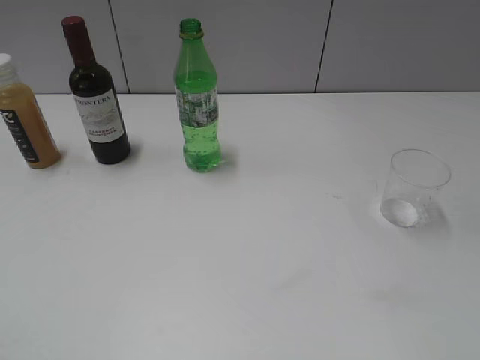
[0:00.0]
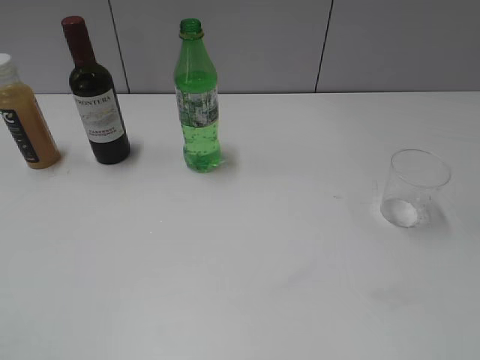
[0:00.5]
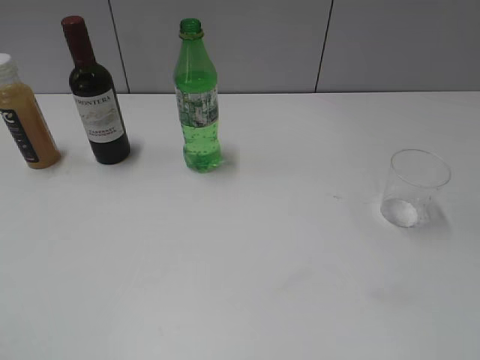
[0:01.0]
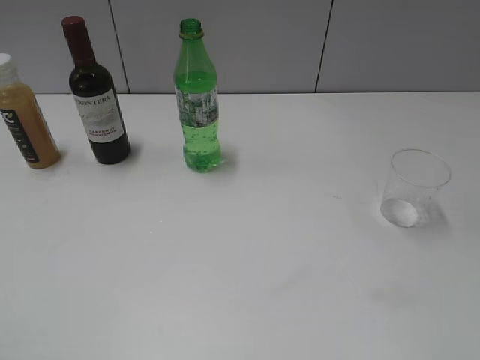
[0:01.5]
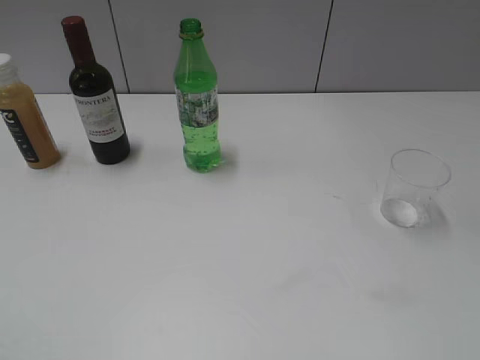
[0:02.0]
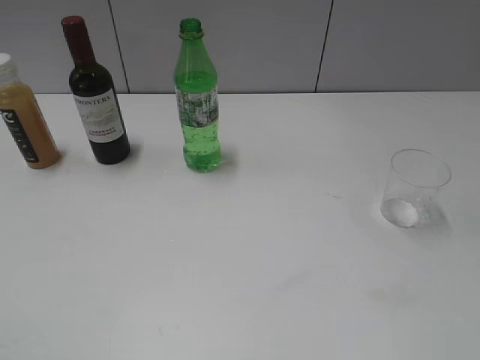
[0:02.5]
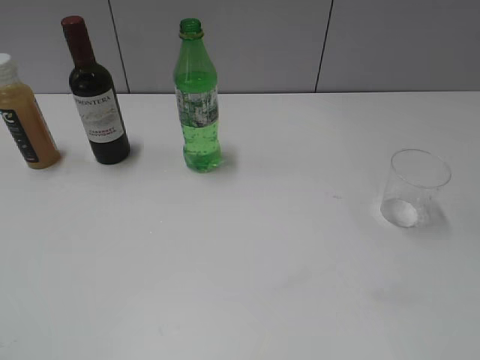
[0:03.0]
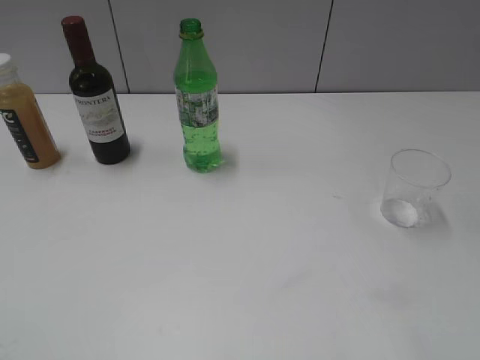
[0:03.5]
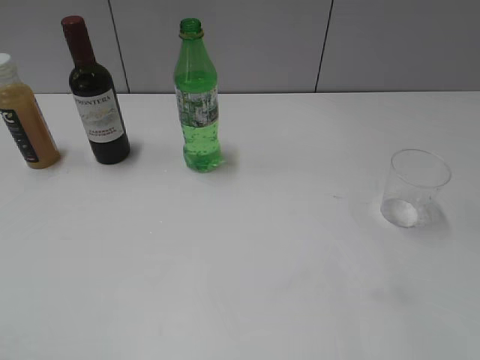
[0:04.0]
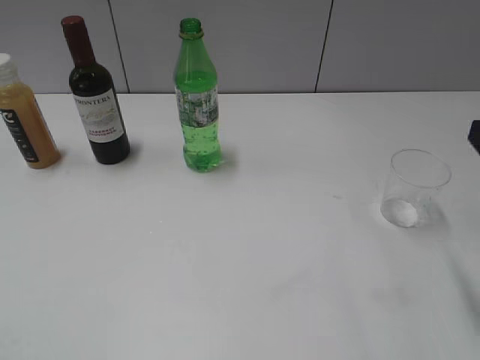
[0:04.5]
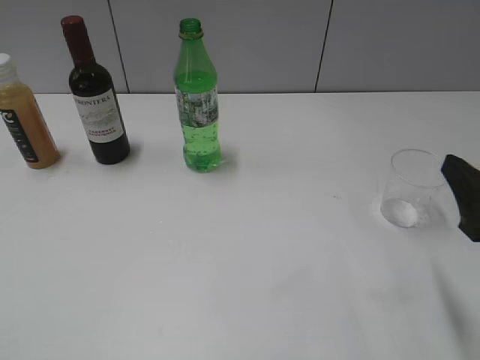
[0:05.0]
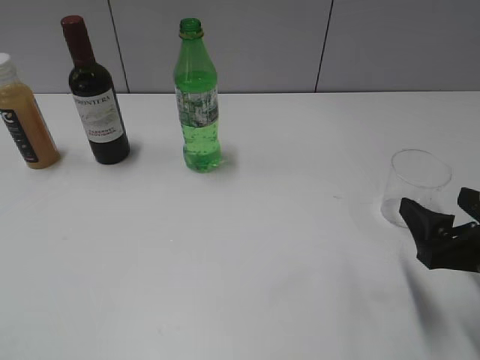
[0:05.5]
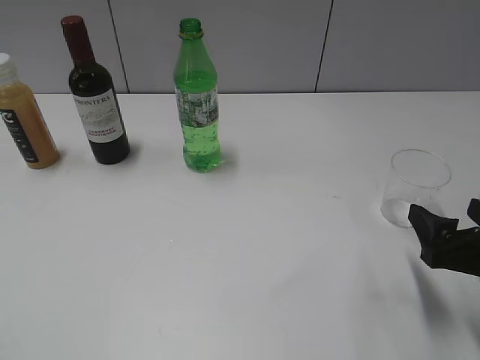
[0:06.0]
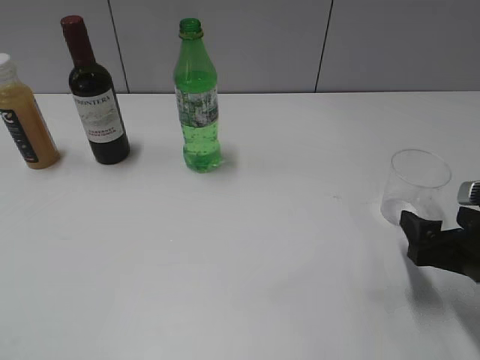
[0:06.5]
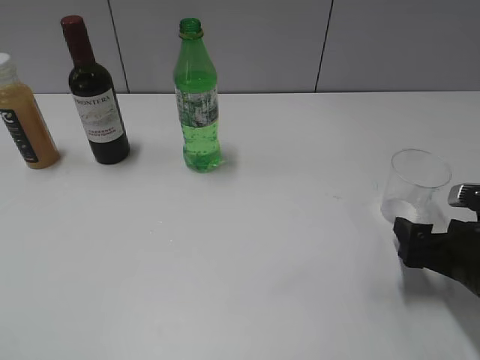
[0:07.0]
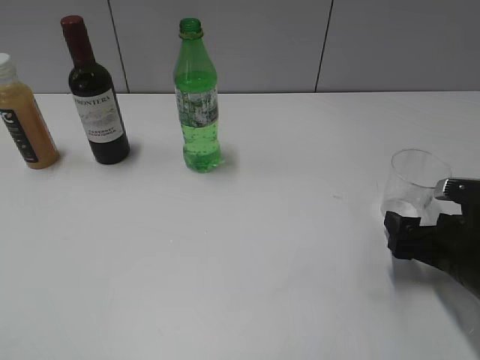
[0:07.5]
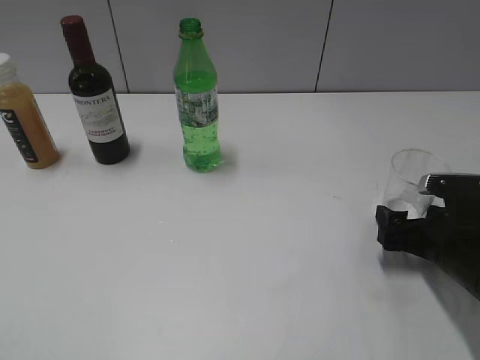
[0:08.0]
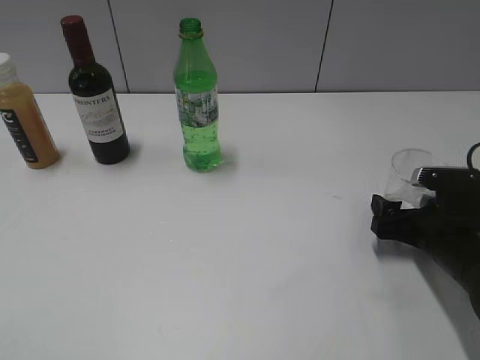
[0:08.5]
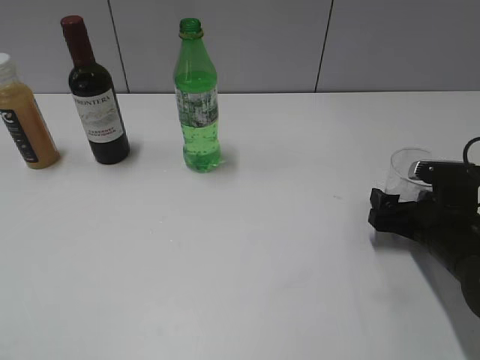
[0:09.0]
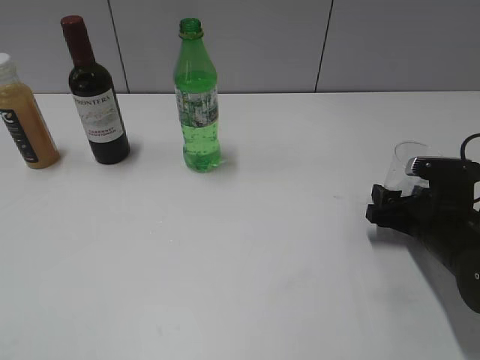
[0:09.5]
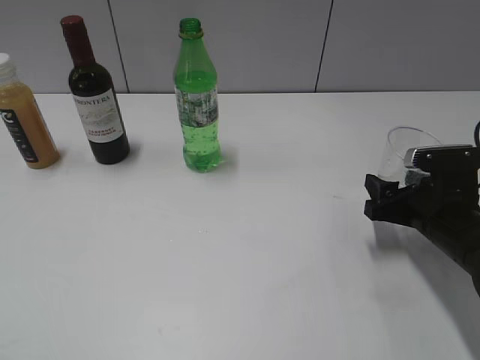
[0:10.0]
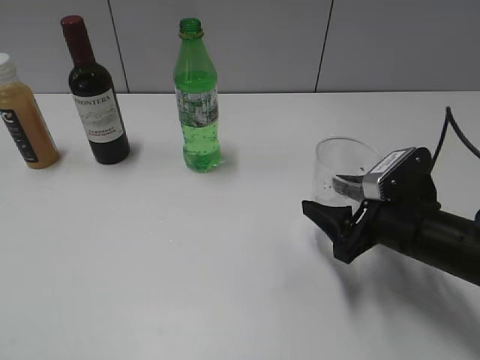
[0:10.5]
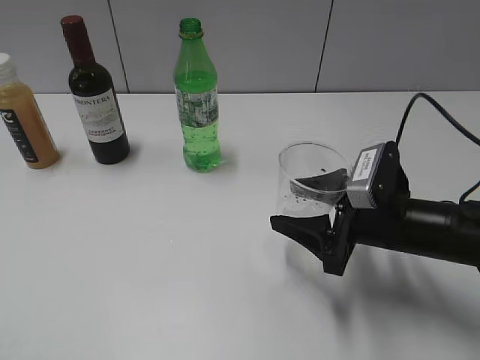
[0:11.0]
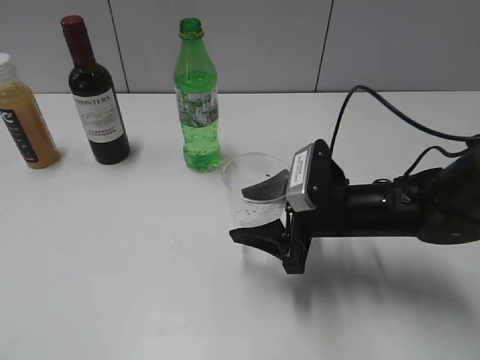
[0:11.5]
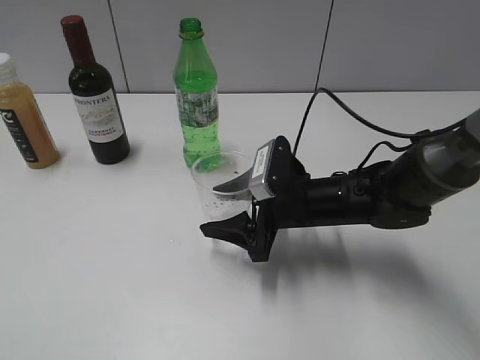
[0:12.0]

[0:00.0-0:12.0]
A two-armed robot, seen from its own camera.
Step, 0:00.0 to 0:09.5: Grasp the transparent cup with right gripper.
0:04.0 to 0:06.0: The right gripper goes some 20 cm downward, and opens up.
0:06.0 to 0:08.0: The right gripper heads downward and forward, covering about 10 cm.
0:08.0 to 0:10.0: The right gripper closes up.
0:10.0 to 0:12.0: The right gripper shifts approximately 15 cm to the left.

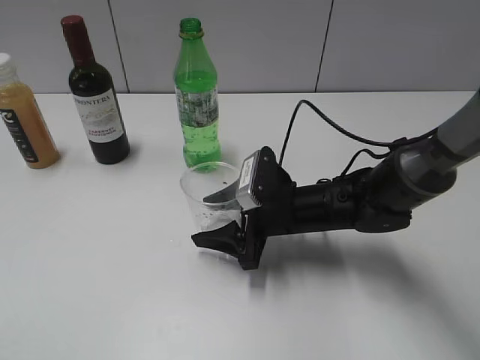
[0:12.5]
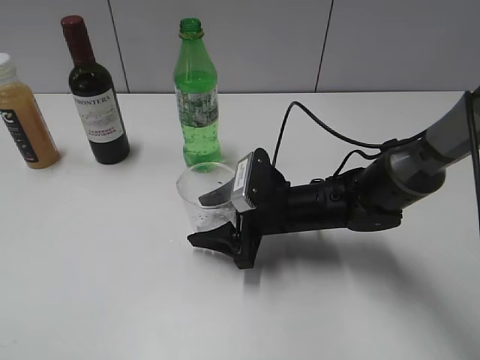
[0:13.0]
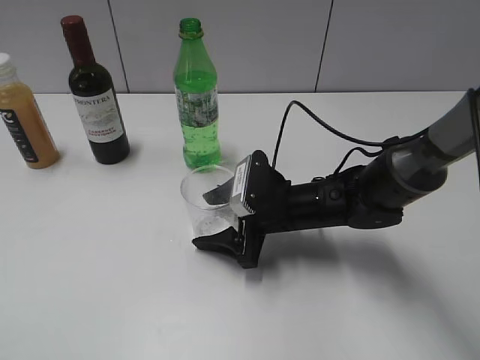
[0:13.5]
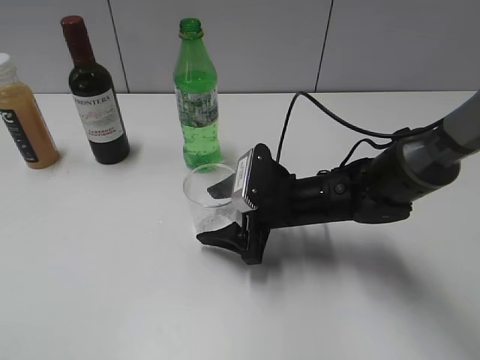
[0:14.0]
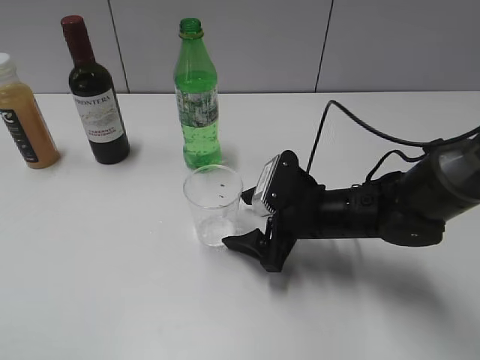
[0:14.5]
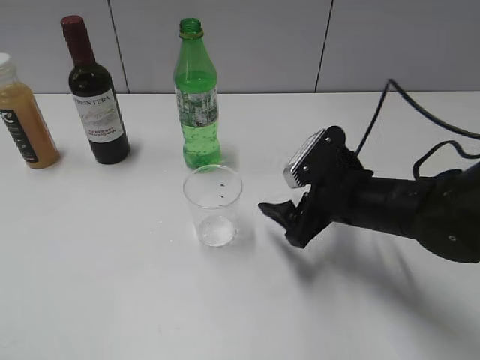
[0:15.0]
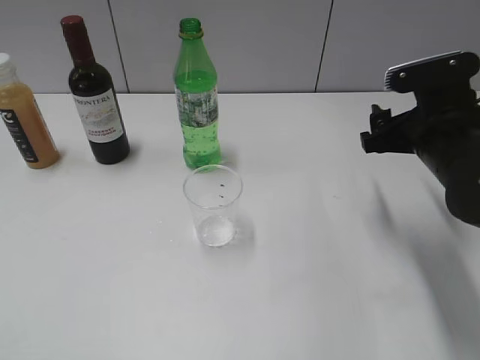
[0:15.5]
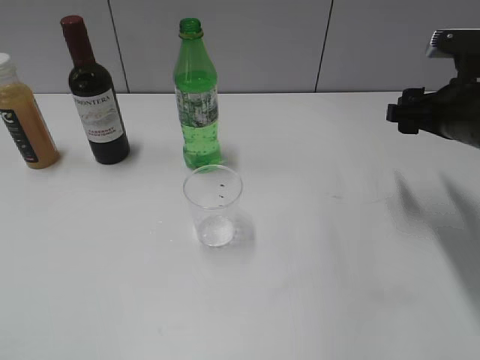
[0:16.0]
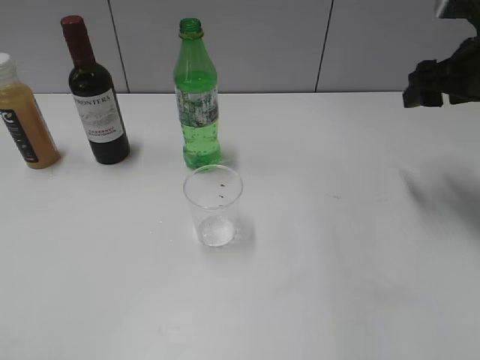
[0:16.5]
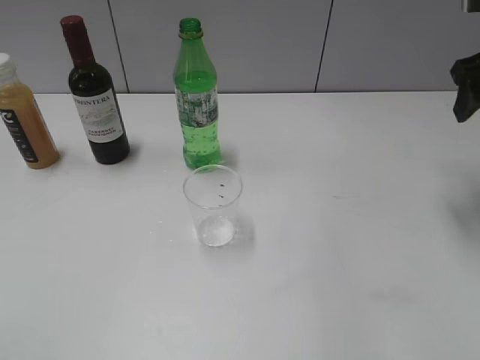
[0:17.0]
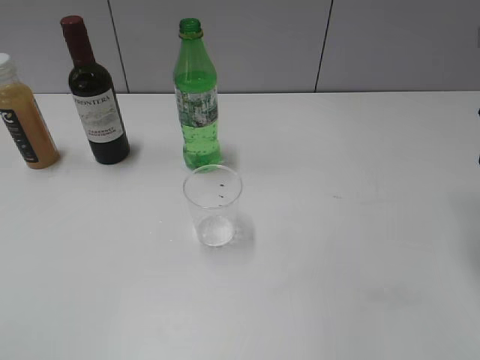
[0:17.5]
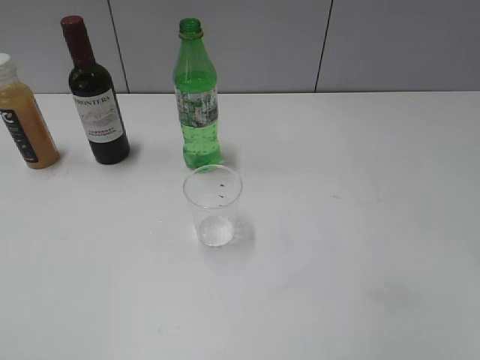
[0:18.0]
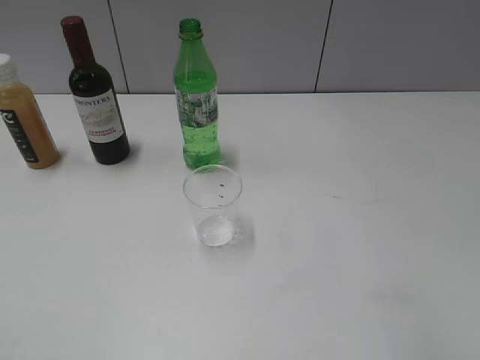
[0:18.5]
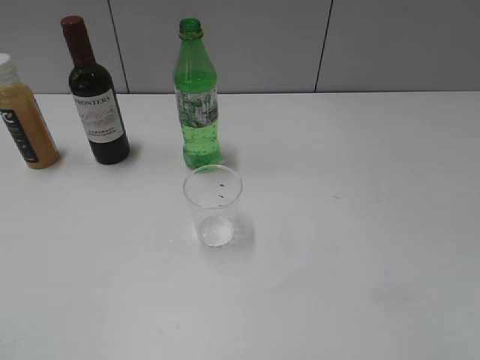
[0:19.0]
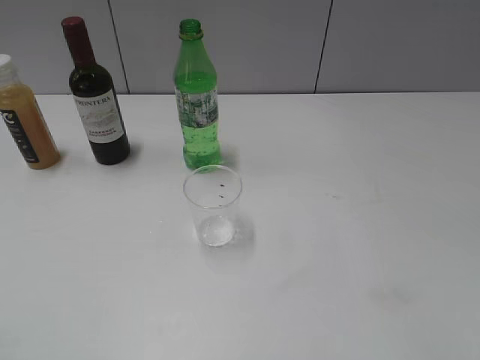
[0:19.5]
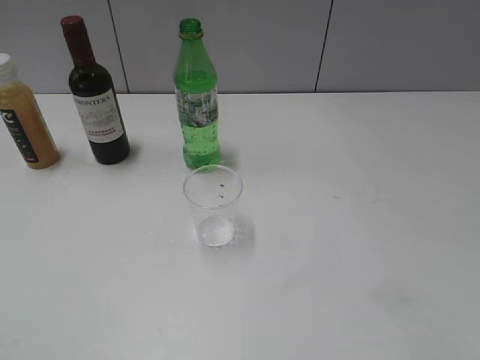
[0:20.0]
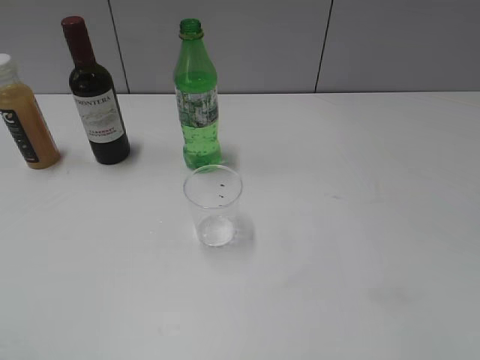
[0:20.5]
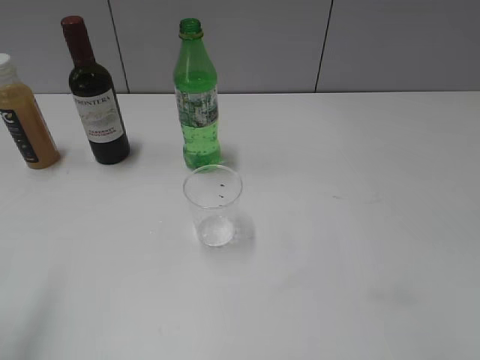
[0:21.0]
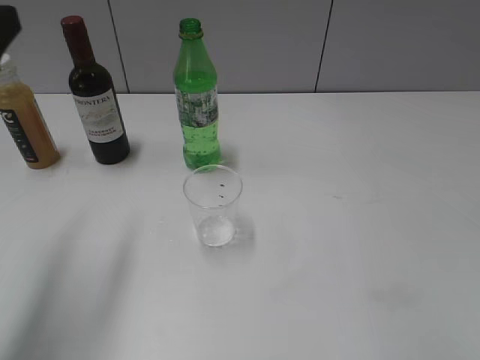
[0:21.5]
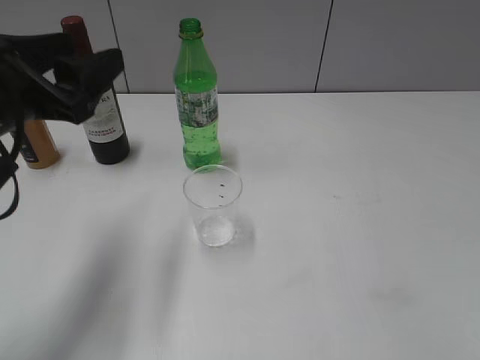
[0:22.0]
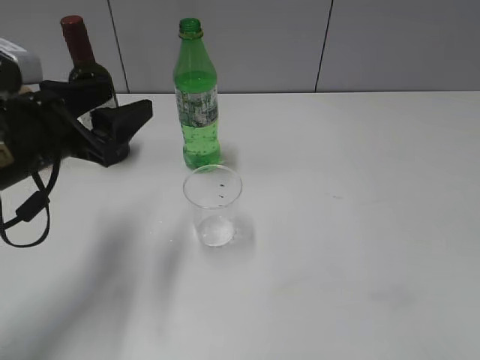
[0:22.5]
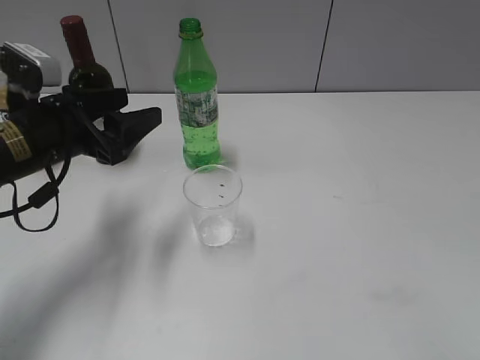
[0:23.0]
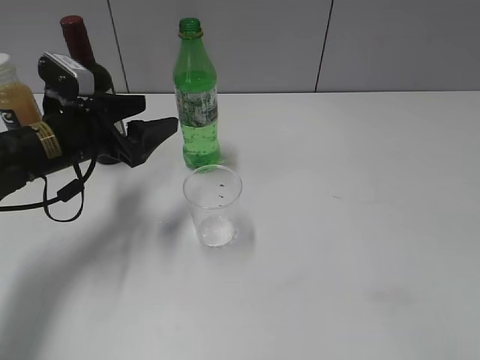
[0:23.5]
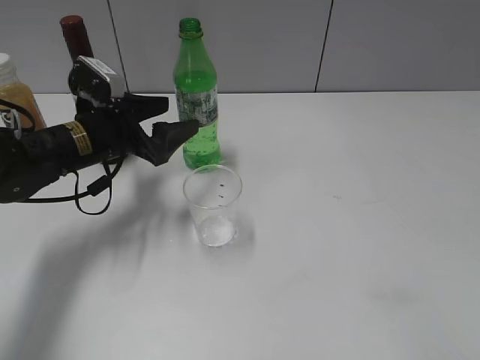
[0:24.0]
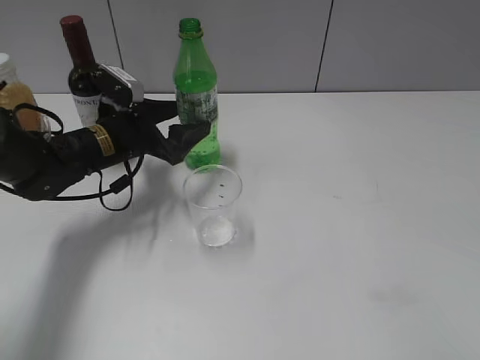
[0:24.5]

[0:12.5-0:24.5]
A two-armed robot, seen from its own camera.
Step, 0:12.5 to 0:14.5: Place the transparent cup on the table with right gripper.
0:12.5 to 0:14.5: The right gripper opens its fingers.
0:14.5 to 0:16.5: The right gripper moves upward, to the right and forward, some 25 cm, and closes.
0:16.5 to 0:18.5: The right gripper goes some 25 cm backward.
0:20.5 to 0:22.5: The left gripper is displaced forward and downward by some 25 cm.
0:22.5 to 0:24.5: The left gripper heads forward and downward, covering about 15 cm.

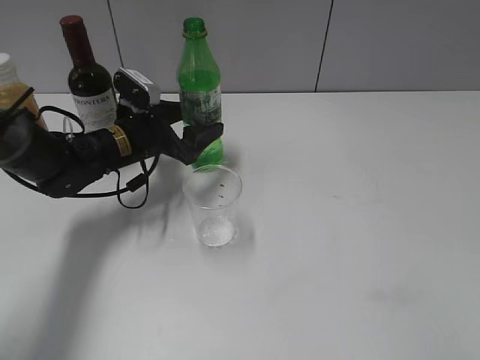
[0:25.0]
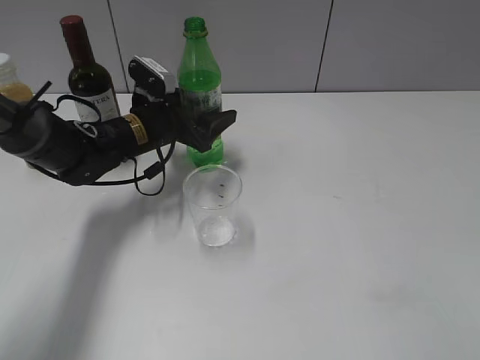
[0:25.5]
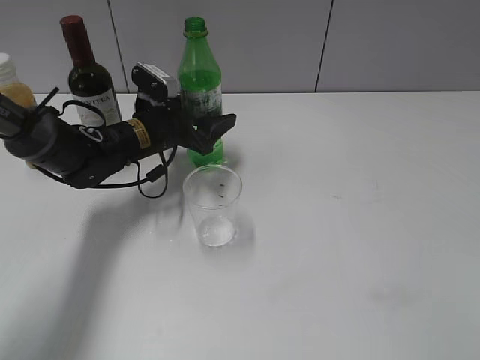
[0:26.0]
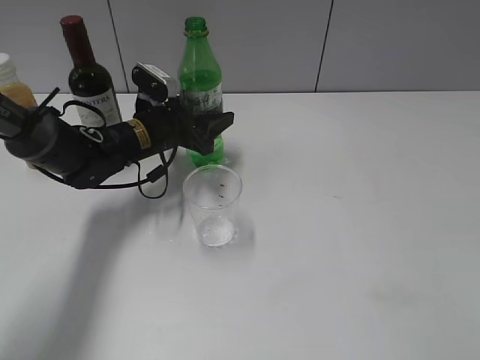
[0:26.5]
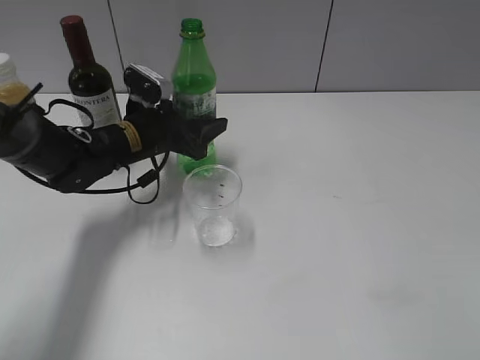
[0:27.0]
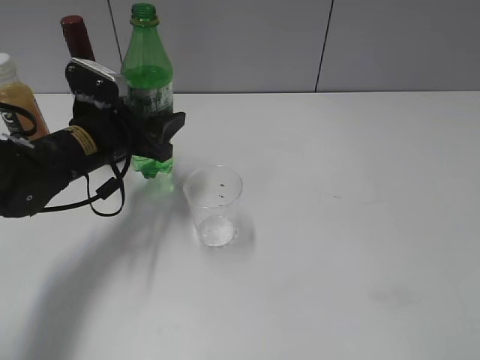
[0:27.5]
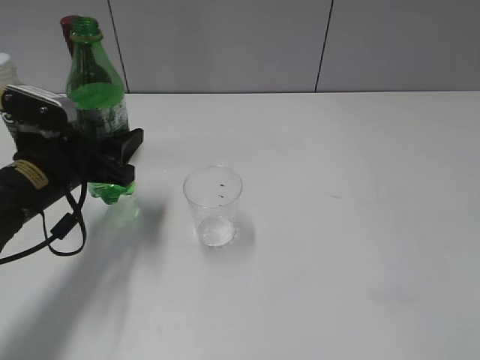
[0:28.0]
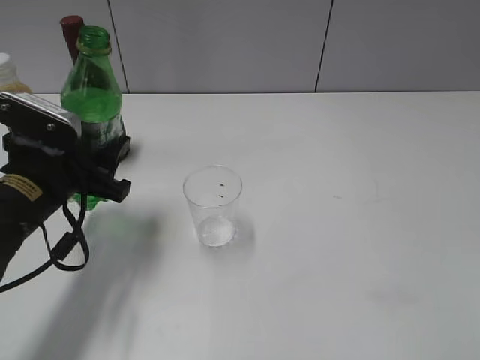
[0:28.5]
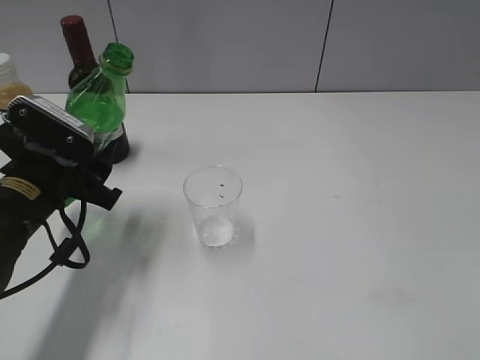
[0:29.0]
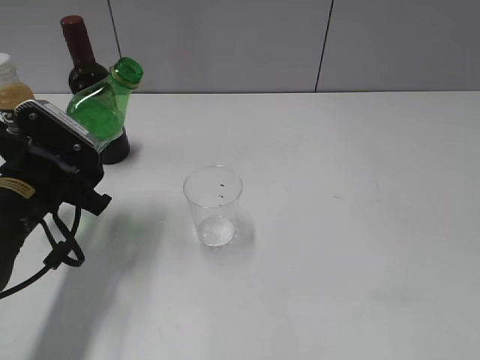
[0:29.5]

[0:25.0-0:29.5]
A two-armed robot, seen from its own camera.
0:25.0 to 0:27.0: The left gripper closes up.
0:27.0 to 0:29.5: The left gripper travels backward and to the left by some 15 cm.
